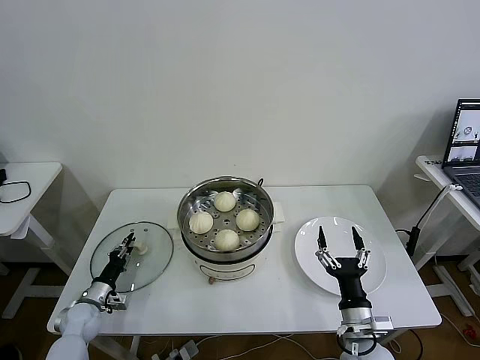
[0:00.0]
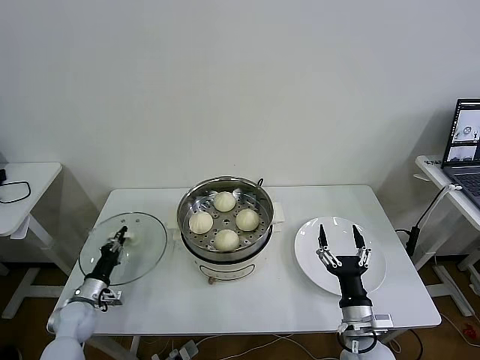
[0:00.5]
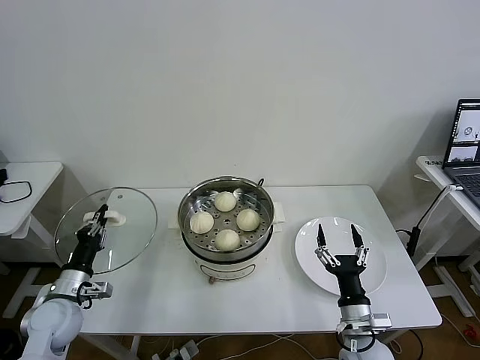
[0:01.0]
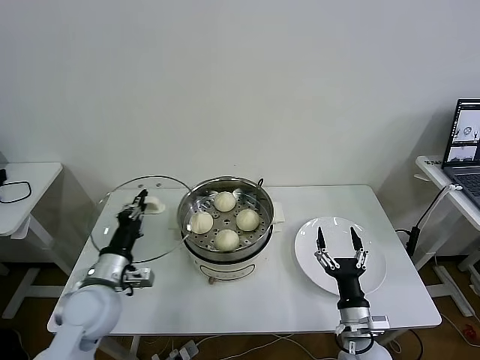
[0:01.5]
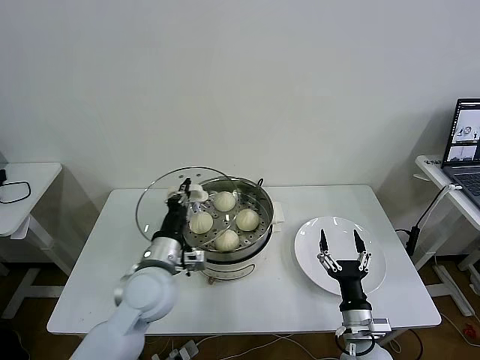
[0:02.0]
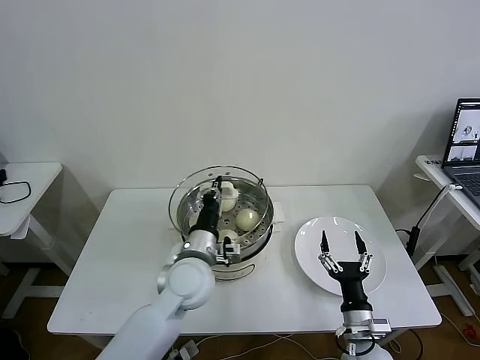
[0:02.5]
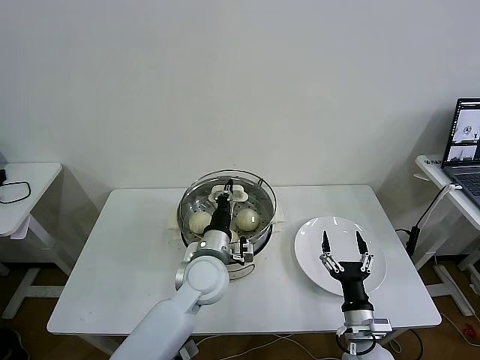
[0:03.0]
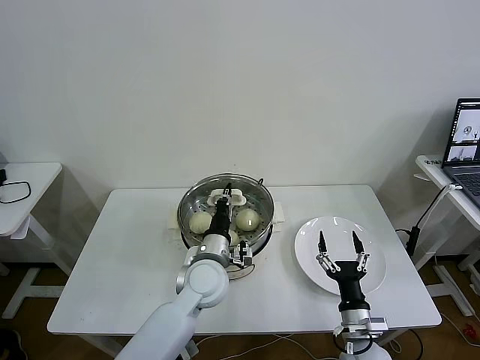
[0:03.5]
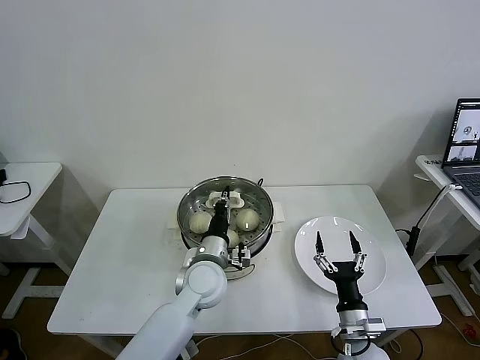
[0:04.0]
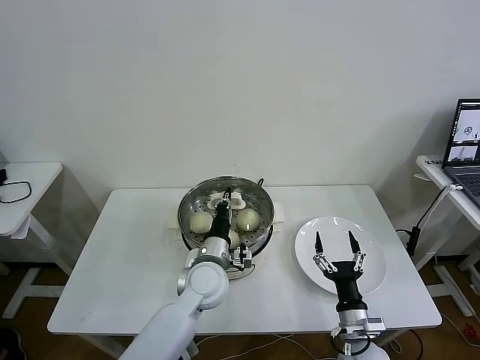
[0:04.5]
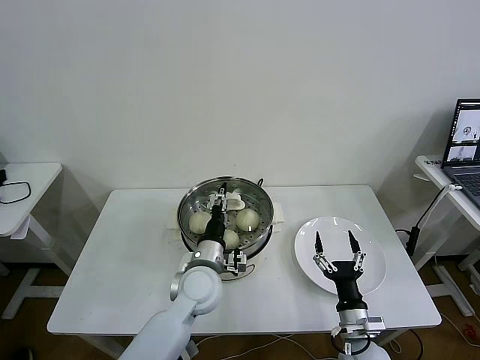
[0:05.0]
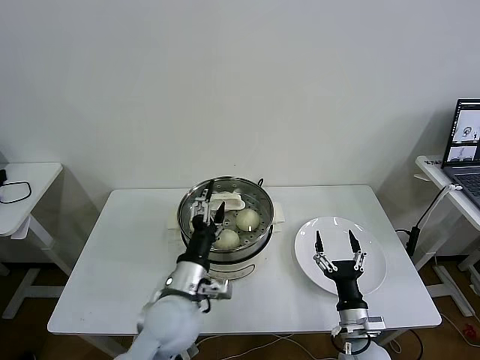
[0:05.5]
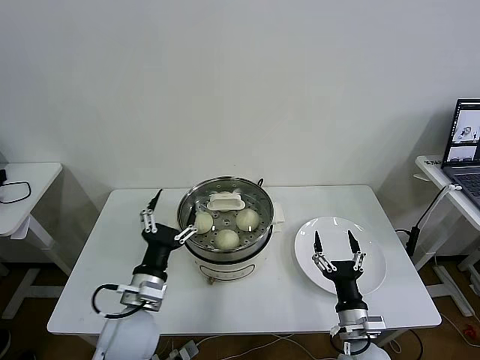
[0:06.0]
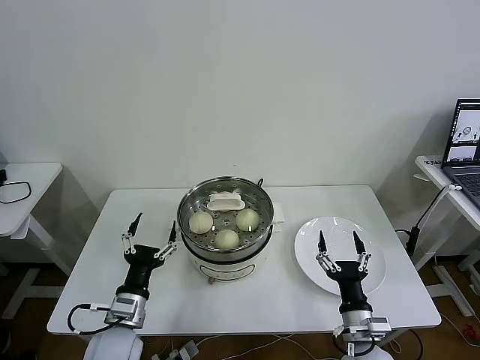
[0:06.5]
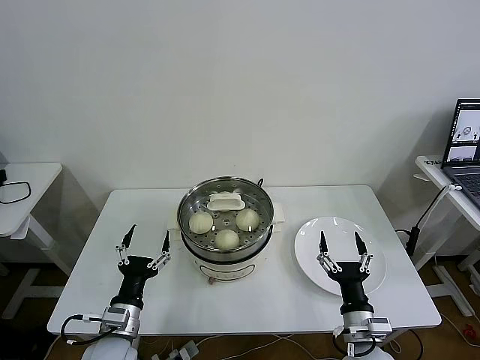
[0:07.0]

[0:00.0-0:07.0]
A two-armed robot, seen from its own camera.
Task of the whole recording: take steamed baozi put them in steamer then cover it.
Step, 0:00.5 to 0:04.5: Place the pot lid on the steamer with left gripper.
0:00.0 to 0:02.0: The left gripper goes approximately 35 cm to the right and upward.
0:02.0 to 0:03.5: The left gripper goes roughly 10 cm to the right.
0:03.5 to 0:05.0: The left gripper opens up.
0:05.0 to 0:07.0: The left gripper shifts about 20 cm to the left and backward, and opens up.
